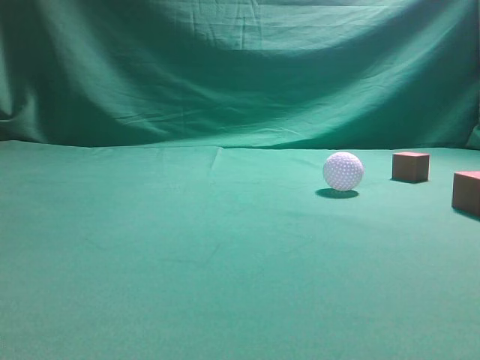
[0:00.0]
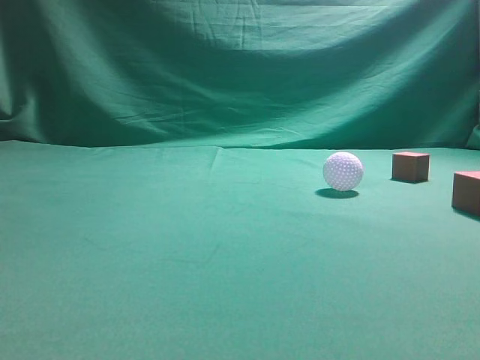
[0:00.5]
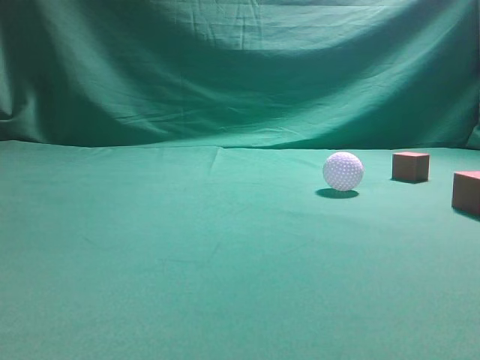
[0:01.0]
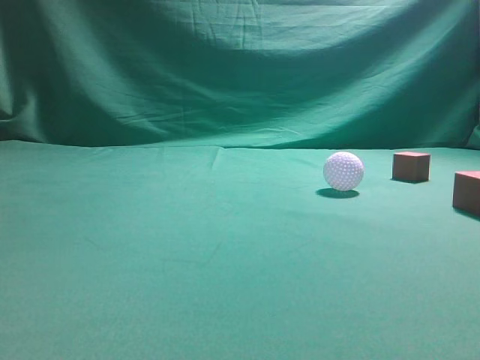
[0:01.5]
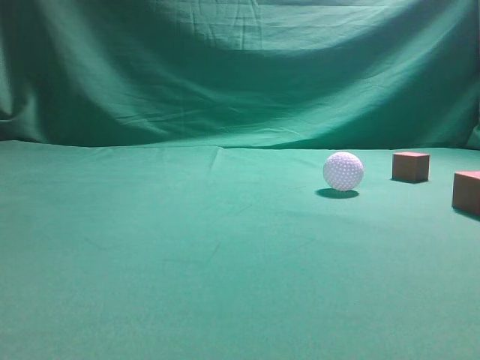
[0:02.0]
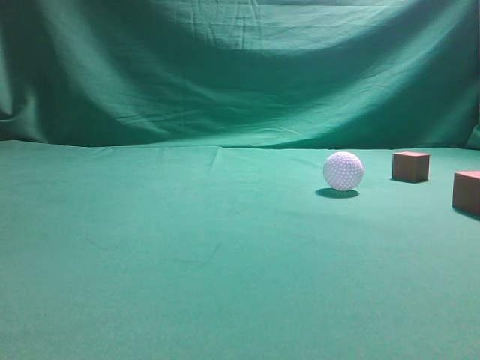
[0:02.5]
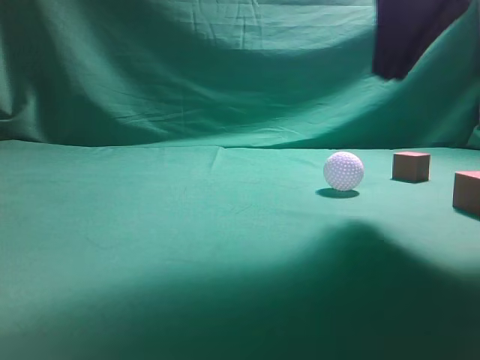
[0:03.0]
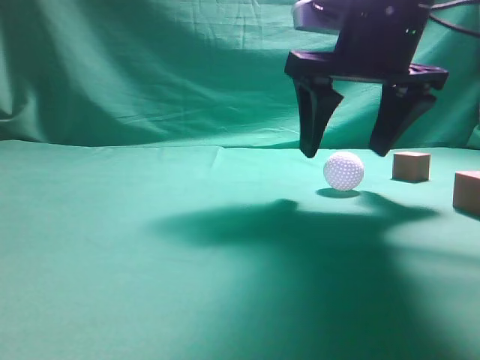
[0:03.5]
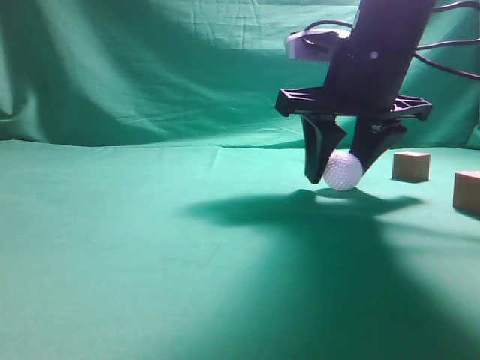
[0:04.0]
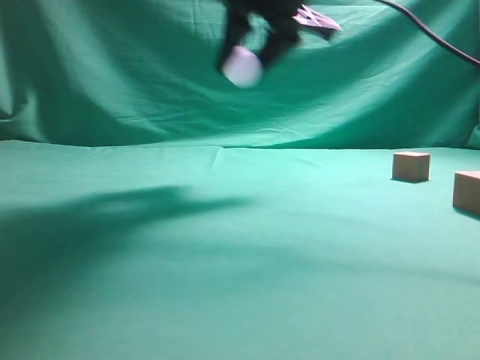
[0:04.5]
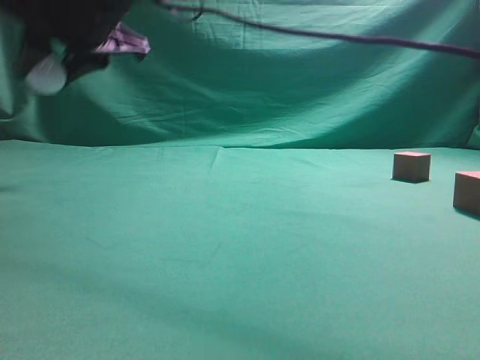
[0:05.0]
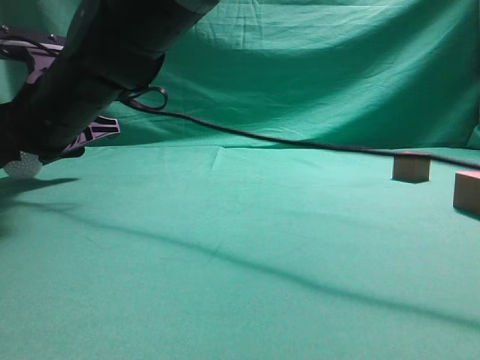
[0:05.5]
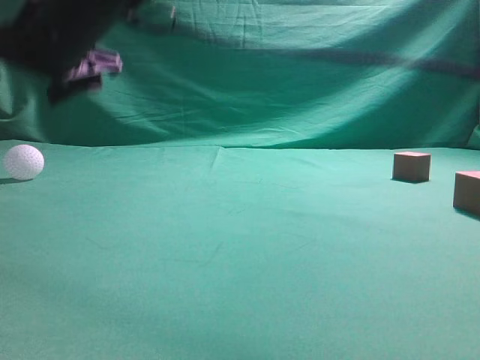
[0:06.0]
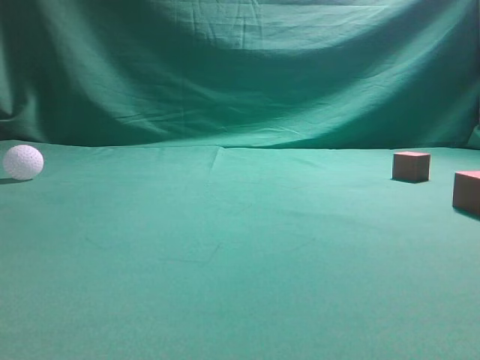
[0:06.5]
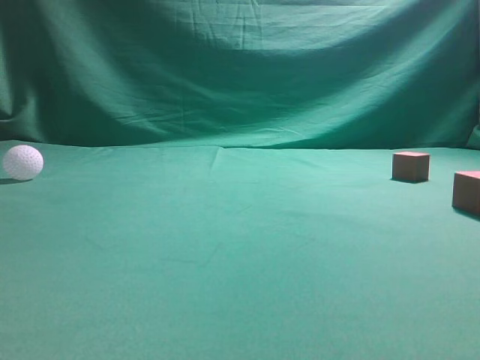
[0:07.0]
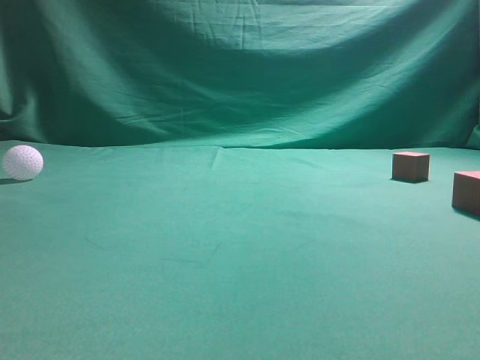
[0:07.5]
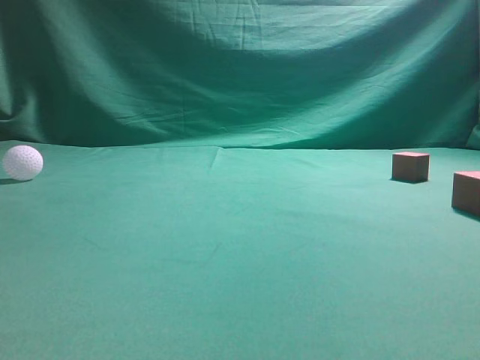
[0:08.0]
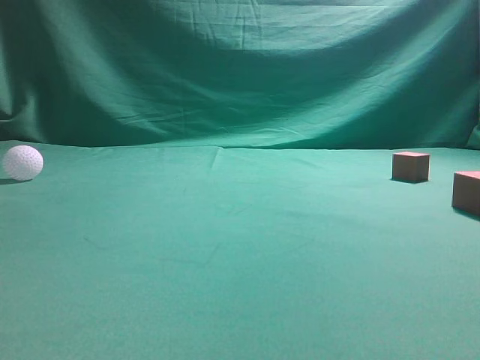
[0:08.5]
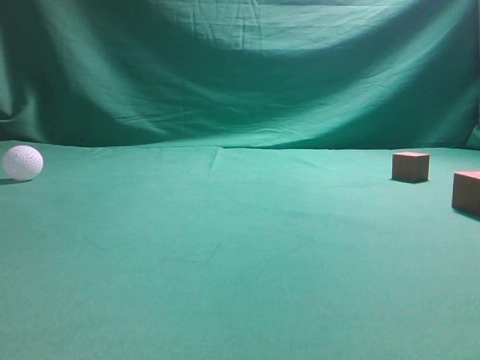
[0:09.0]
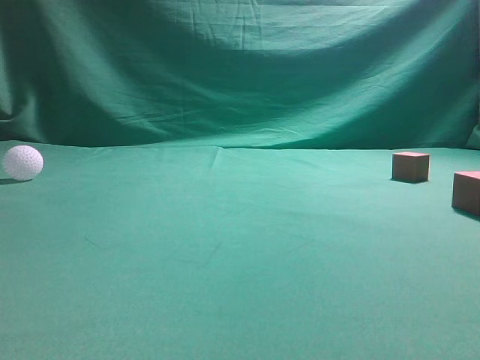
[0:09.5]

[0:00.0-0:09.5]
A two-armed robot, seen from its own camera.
Step, 0:00.0 to 0:04.0: Grasp the spherical object on the right side.
0:02.0 to 0:04.0: The right gripper heads forward, to the left and downward, covering about 35 cm, and opens.
0:04.0 to 0:05.5: The right gripper shifts approximately 30 cm to the left.
0:05.5 to 0:07.5: The right gripper moves to the right, upward and backward, about 50 cm, and closes up.
